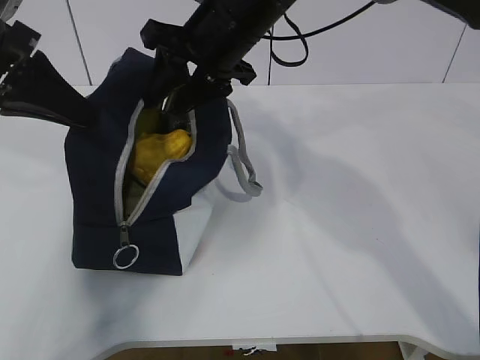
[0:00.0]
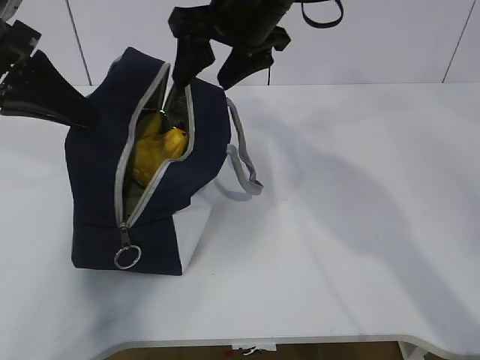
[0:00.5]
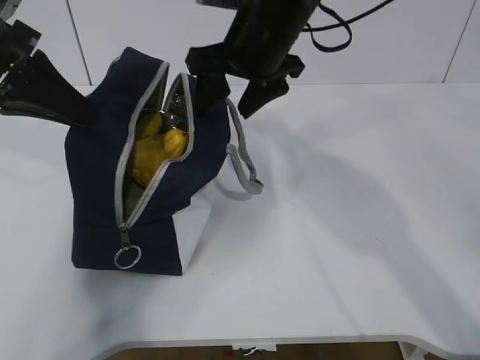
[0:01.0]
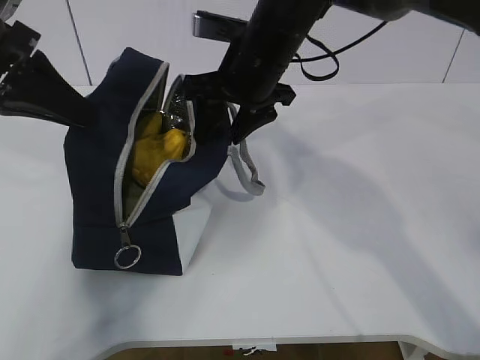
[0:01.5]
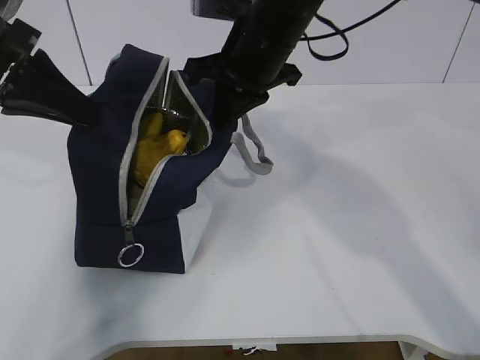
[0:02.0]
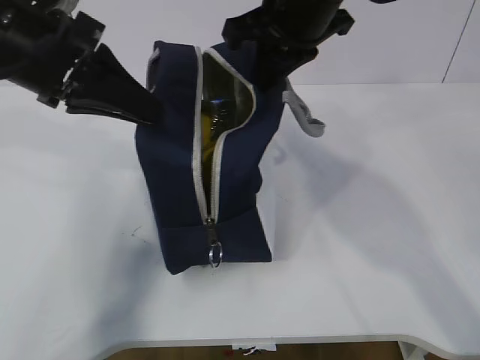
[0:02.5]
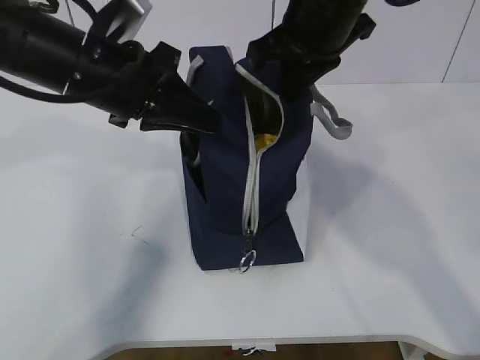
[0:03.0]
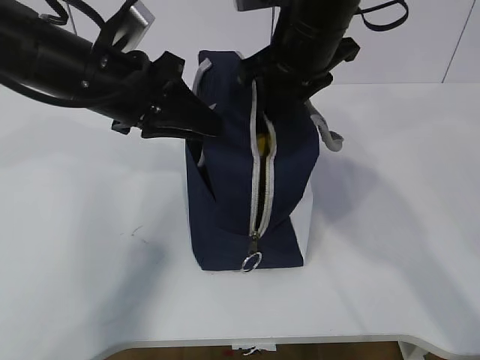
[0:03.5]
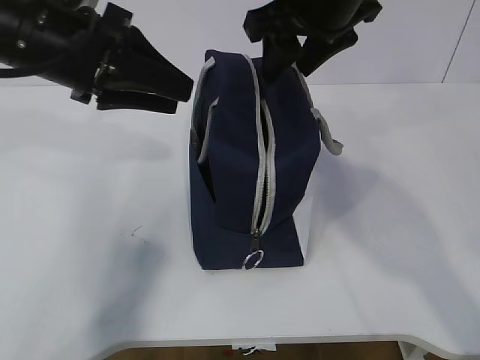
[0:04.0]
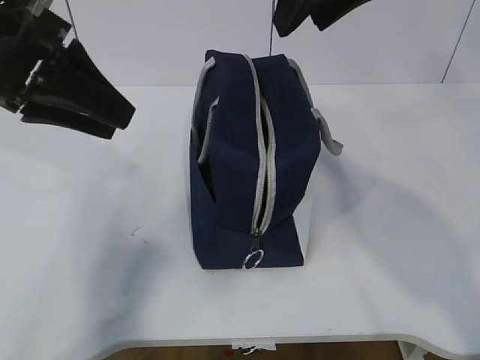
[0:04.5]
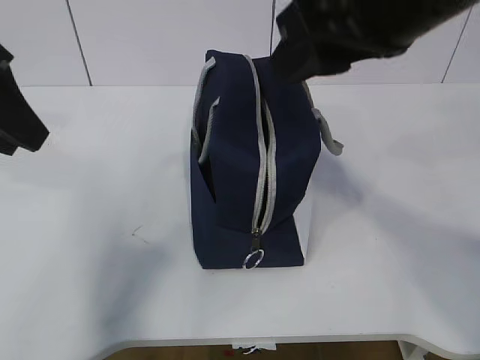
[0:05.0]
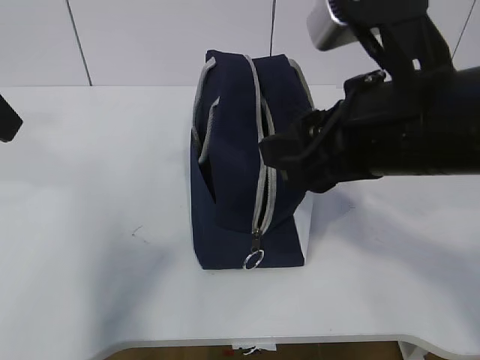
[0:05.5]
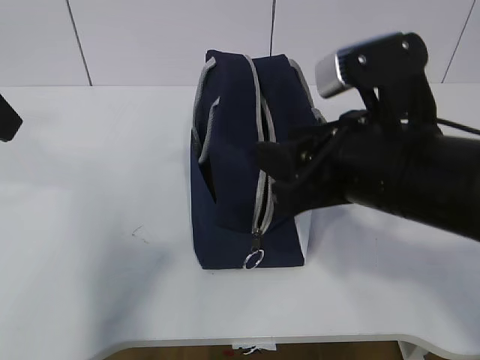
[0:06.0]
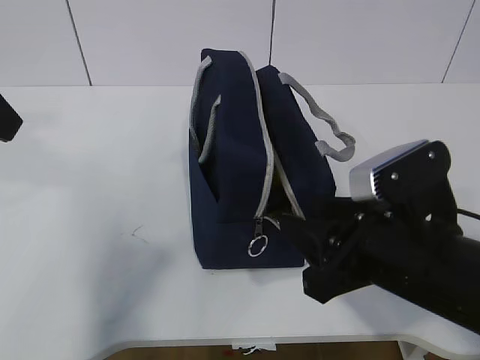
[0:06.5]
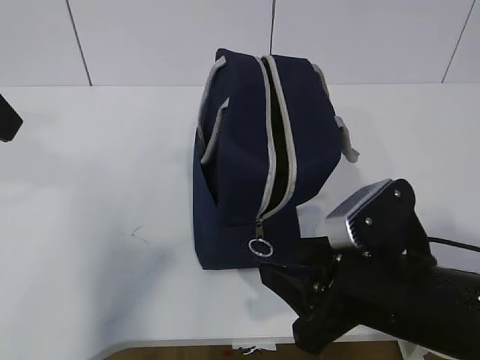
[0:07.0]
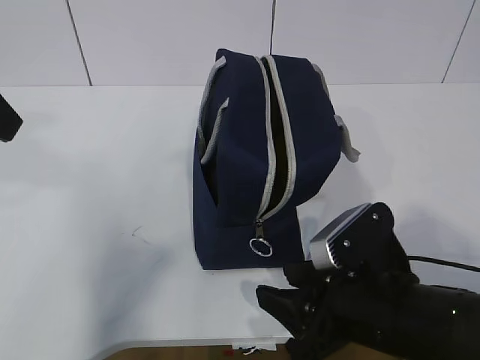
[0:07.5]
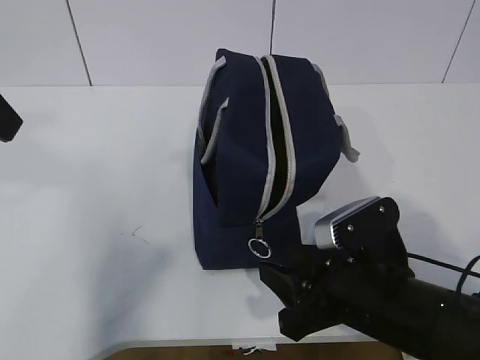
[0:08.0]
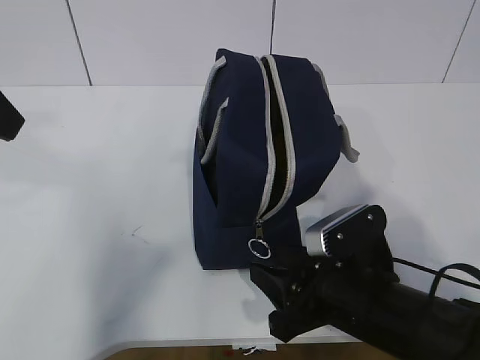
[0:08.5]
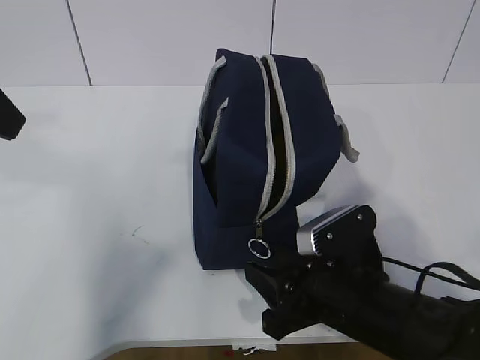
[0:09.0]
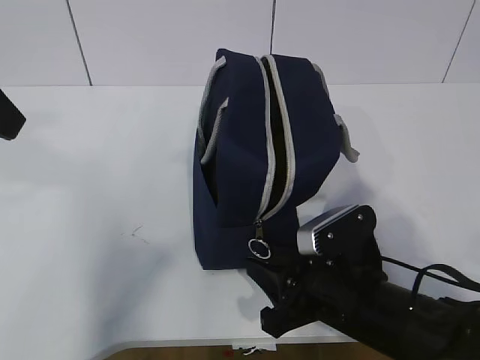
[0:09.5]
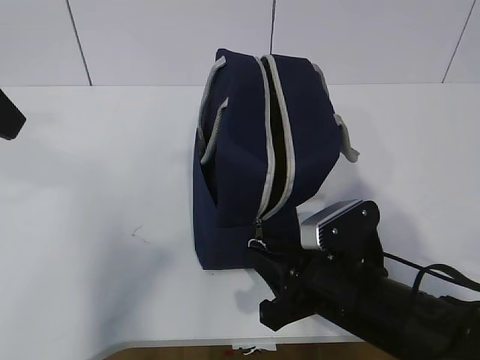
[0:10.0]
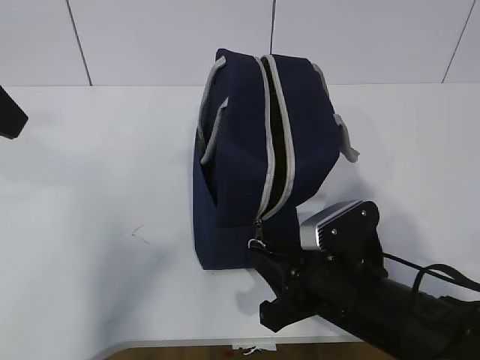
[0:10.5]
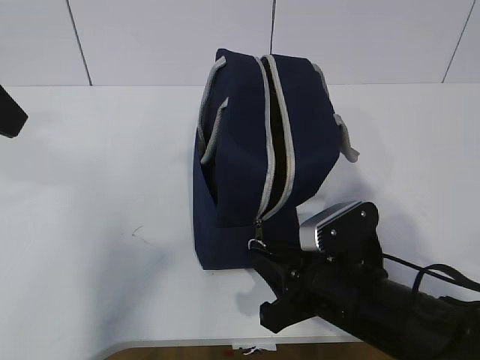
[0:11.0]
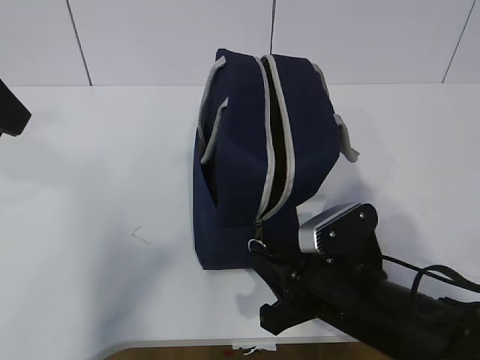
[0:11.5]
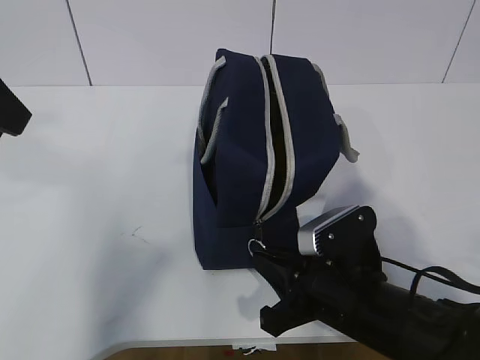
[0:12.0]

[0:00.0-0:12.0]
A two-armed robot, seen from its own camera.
Step, 0:00.0 to 0:11.5: Grab the lunch bag with your left hand.
0:00.0 to 0:02.0: The right gripper closes.
0:02.0 to 0:04.0: The right gripper heads upward, covering some 5 cm, and opens up. Meanwhile the left gripper goes roughly 5 cm to the right, and opens its fingers.
0:04.0 to 0:06.0: The left gripper moves backward, to the left and upward, roughly 10 cm, while the right gripper goes roughly 20 cm backward and downward.
0:06.0 to 0:08.0: The right gripper is displaced downward by approximately 15 cm.
0:08.0 to 0:10.0: The grippers make only small movements.
0:10.0 to 0:12.0: The two grippers keep their place.

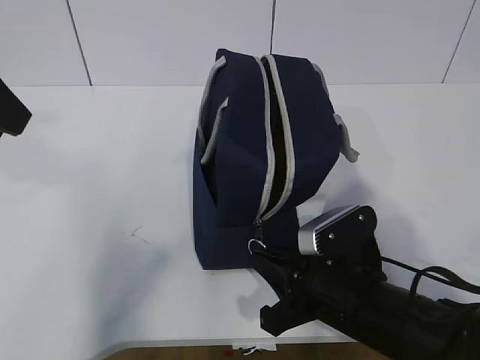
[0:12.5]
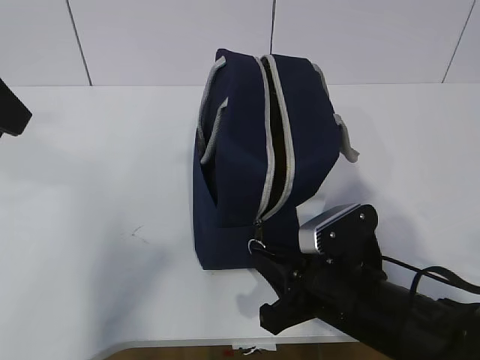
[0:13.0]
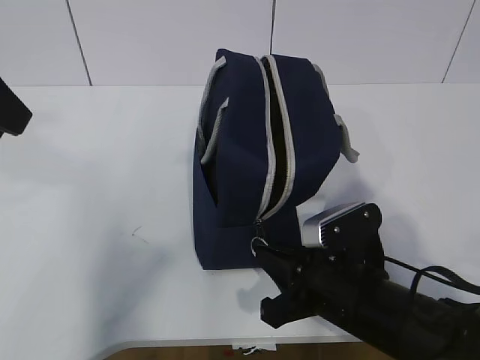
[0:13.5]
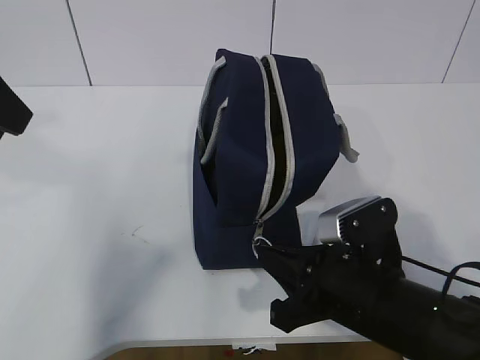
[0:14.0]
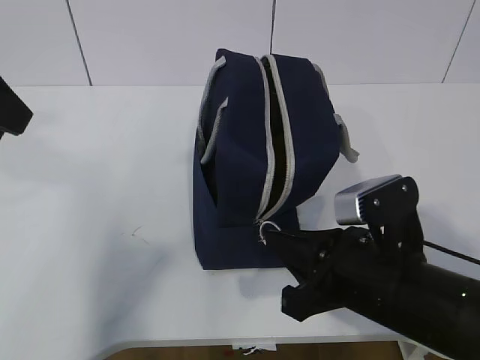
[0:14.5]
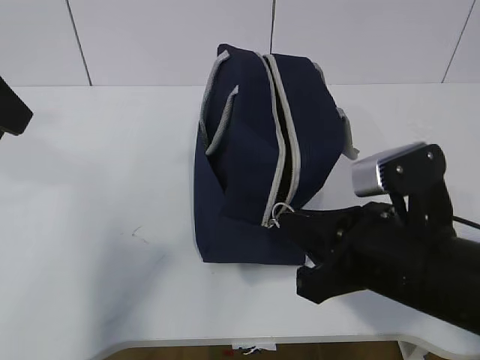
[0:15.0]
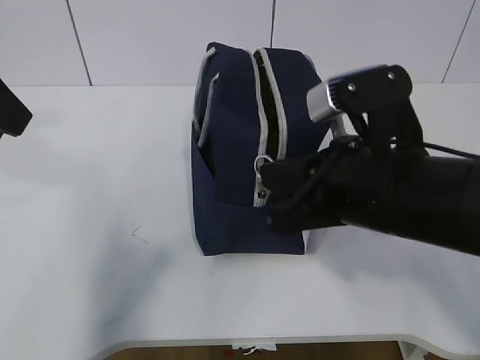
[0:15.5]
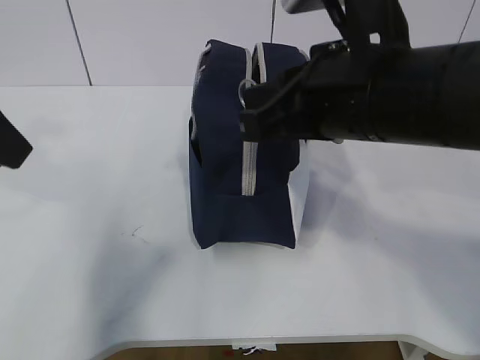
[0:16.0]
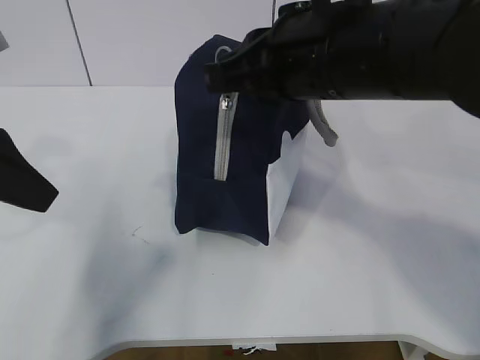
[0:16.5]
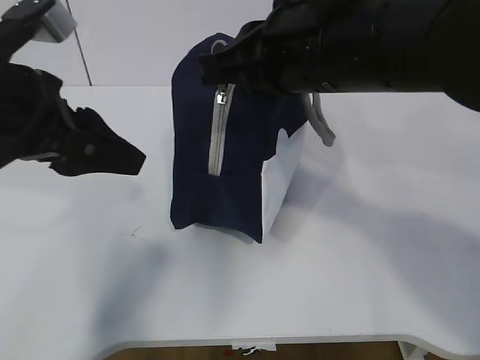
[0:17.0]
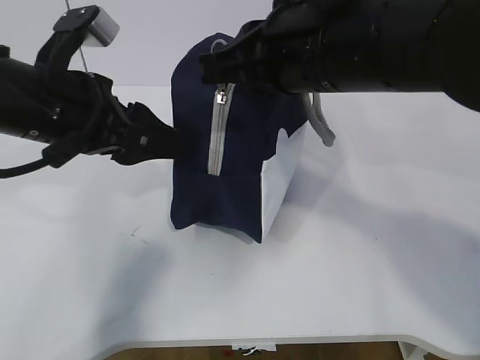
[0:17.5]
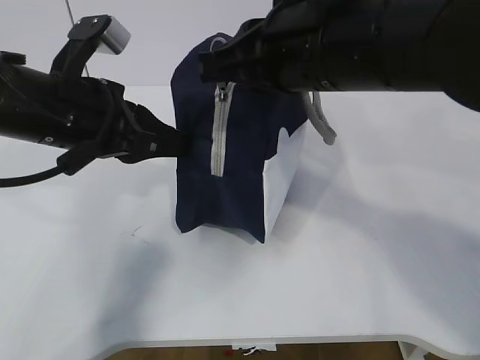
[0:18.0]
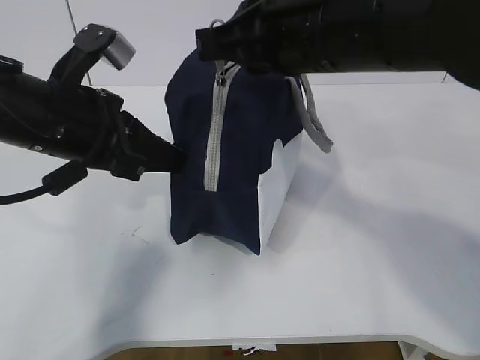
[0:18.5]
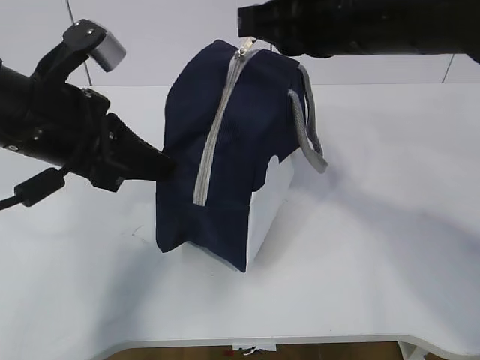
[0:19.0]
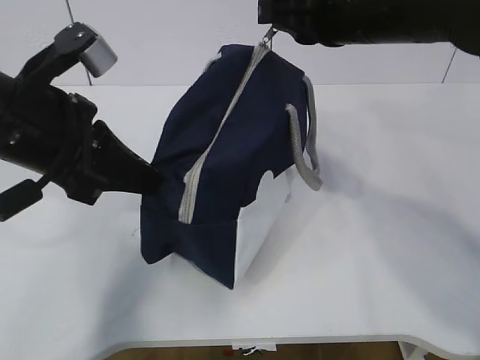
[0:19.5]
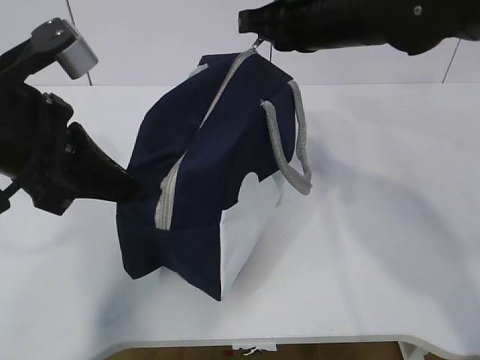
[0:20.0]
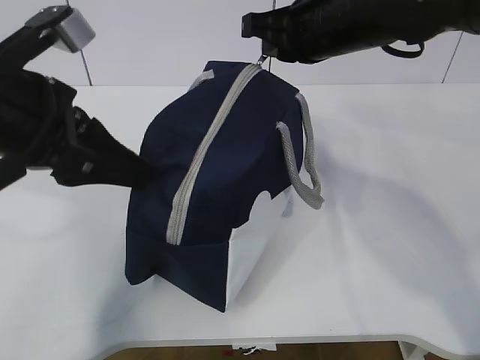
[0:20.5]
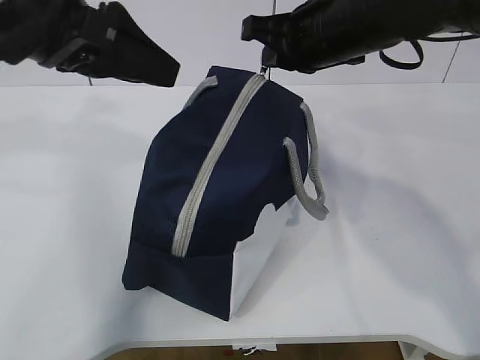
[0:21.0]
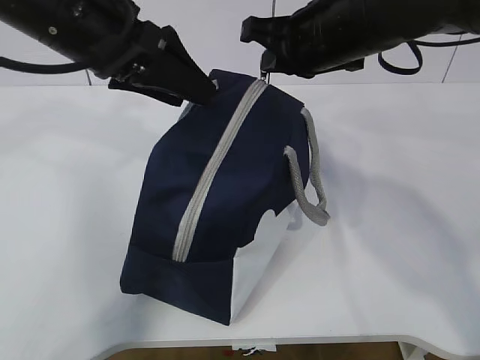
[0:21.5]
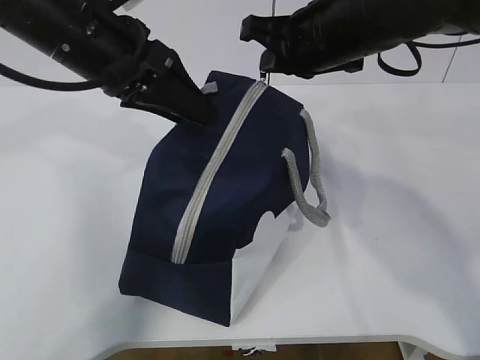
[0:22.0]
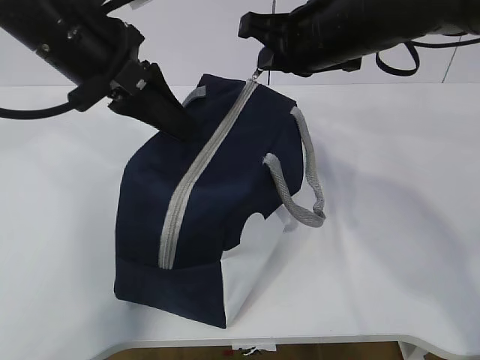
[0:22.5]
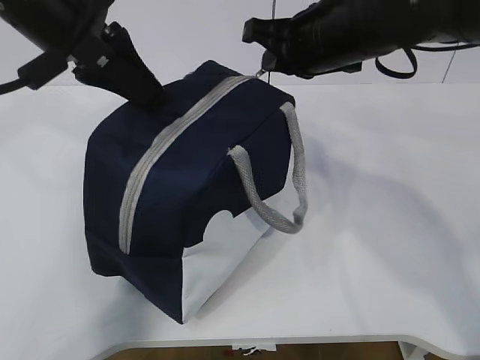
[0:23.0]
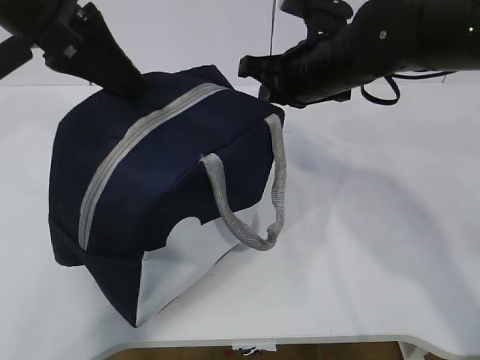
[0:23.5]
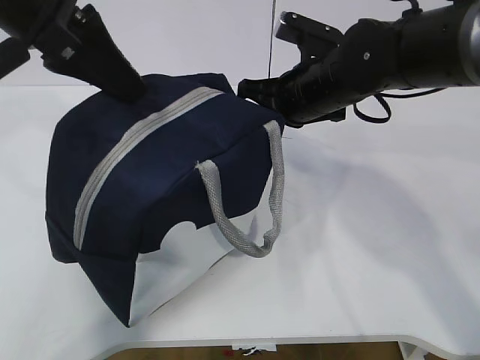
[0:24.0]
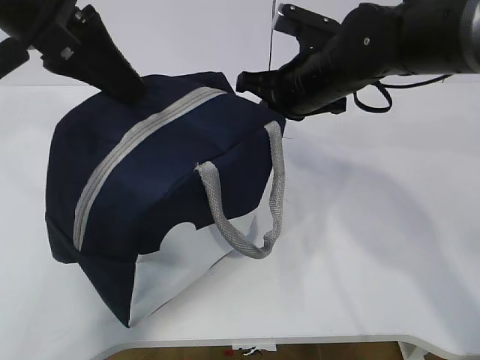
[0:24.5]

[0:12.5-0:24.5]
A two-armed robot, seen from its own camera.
Step, 0:12.5 to 0:15.5: Pull the zipper with your right hand.
Step, 0:16.0 to 0:16.5: Grab the lunch bag with your left hand.
0:12.5 to 0:14.5: The right gripper travels upward by about 5 cm.
0:14.5 to 0:16.5: The right gripper moves upward and forward, roughly 20 cm, while the left gripper is displaced downward by some 5 cm.
0:16.5 to 0:18.5: The left gripper heads to the right, covering approximately 10 cm, and closes.
0:18.5 to 0:20.5: The right gripper shifts some 10 cm forward; the left gripper moves roughly 5 cm, and opens its fingers.
0:20.5 to 0:22.5: The left gripper heads forward, covering approximately 10 cm, and closes.
0:22.5 to 0:24.5: The right gripper moves downward, approximately 5 cm, while the left gripper travels upward by about 5 cm.

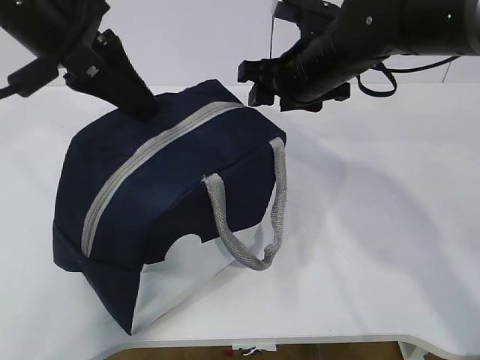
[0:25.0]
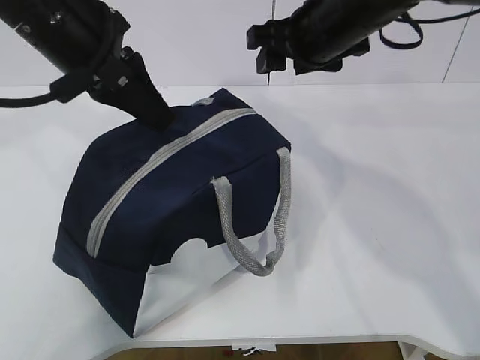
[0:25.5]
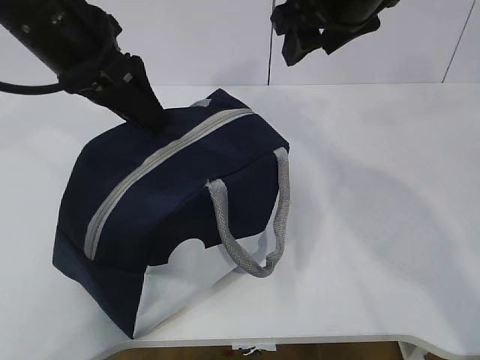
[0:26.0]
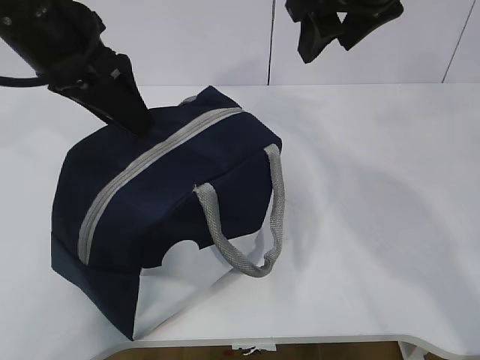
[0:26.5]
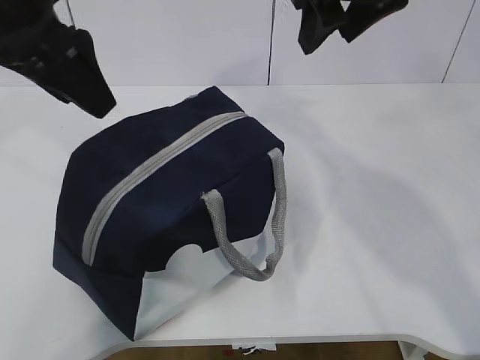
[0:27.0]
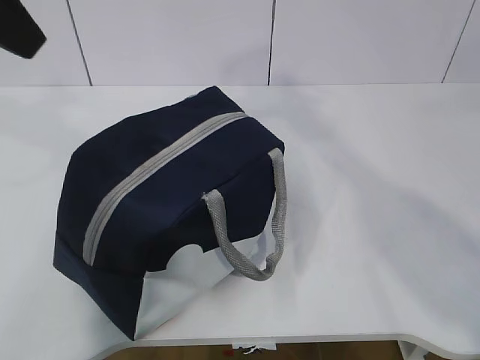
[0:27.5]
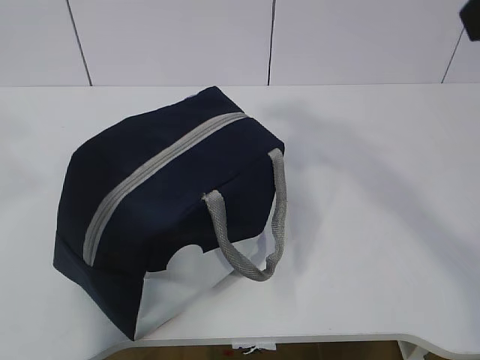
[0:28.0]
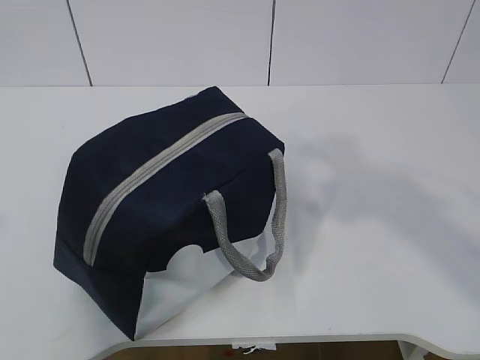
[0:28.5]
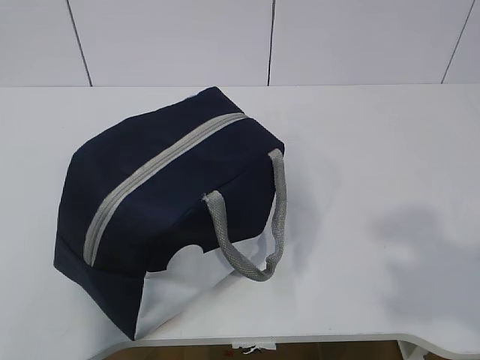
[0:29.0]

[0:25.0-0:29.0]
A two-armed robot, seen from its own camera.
0:25.0 to 0:27.0: The right gripper moves upward, roughly 15 cm. Meanwhile the left gripper opens its fingers.
0:27.0 to 0:29.0: The right gripper goes roughly 40 cm backward and to the right, while the left gripper heads backward and to the left, covering about 30 cm.
